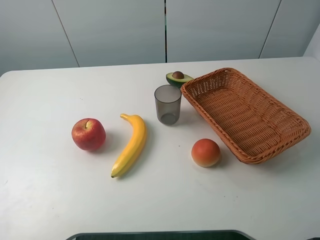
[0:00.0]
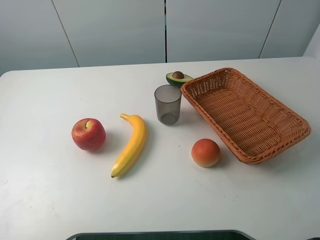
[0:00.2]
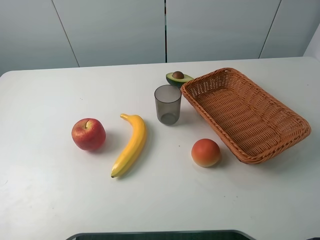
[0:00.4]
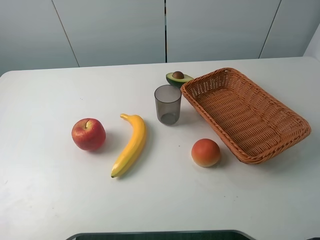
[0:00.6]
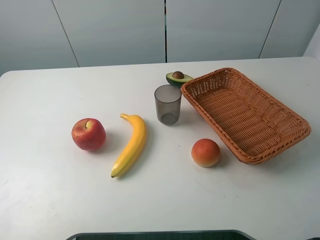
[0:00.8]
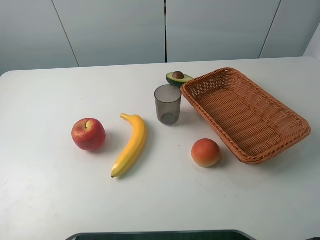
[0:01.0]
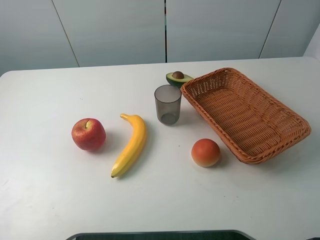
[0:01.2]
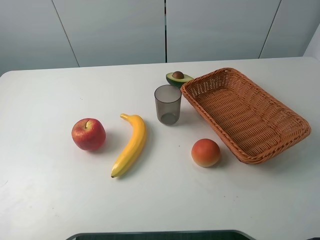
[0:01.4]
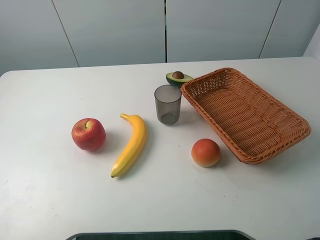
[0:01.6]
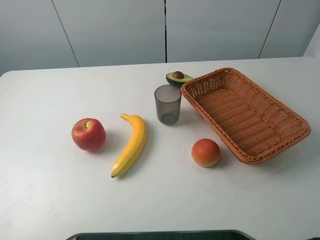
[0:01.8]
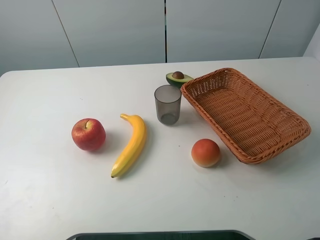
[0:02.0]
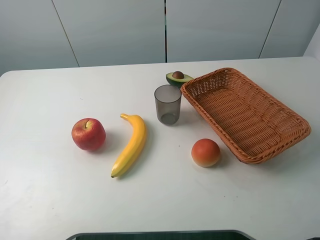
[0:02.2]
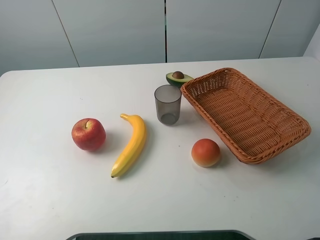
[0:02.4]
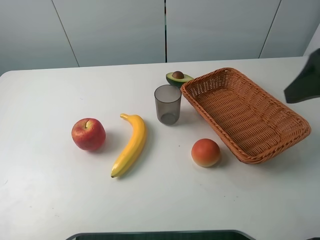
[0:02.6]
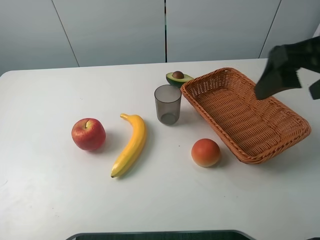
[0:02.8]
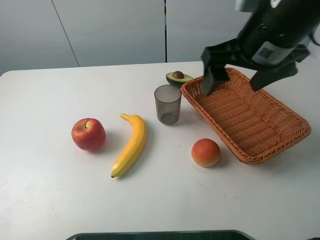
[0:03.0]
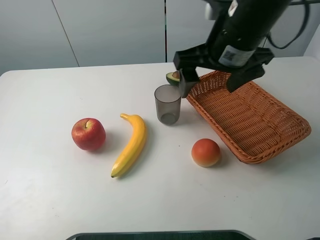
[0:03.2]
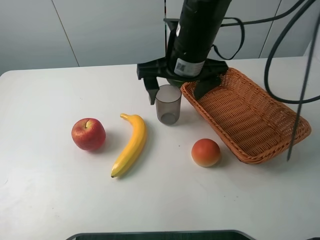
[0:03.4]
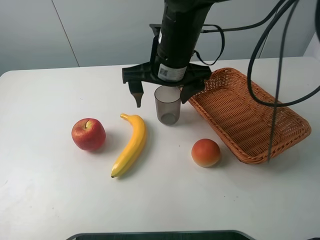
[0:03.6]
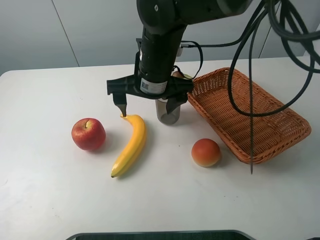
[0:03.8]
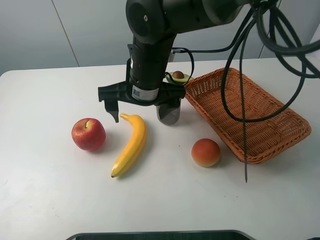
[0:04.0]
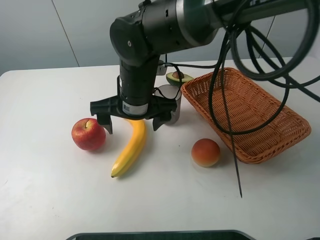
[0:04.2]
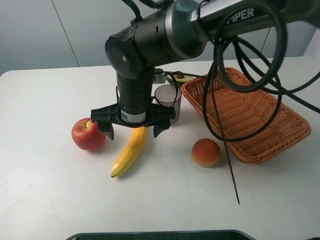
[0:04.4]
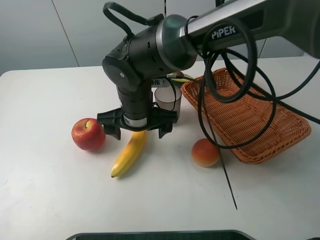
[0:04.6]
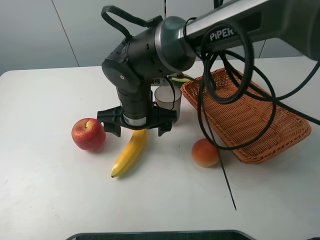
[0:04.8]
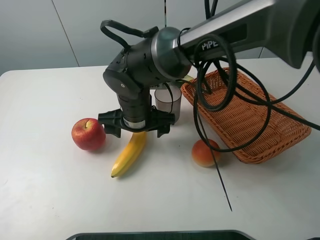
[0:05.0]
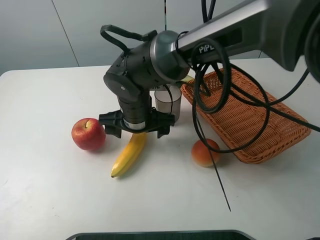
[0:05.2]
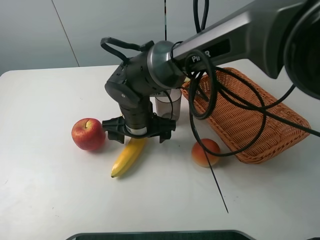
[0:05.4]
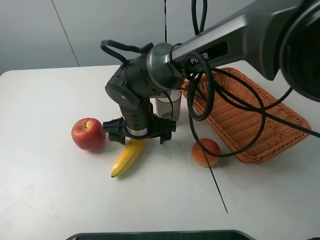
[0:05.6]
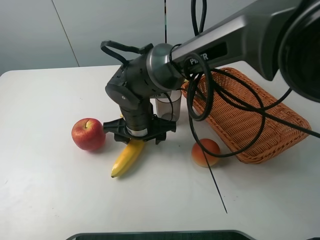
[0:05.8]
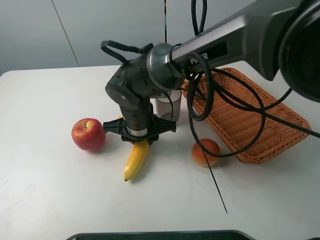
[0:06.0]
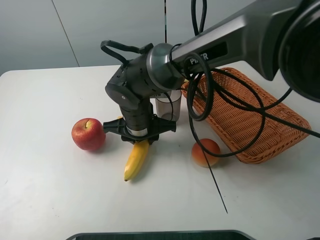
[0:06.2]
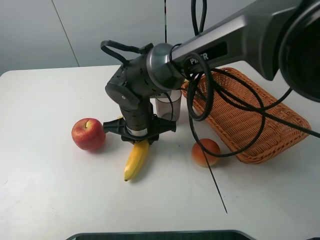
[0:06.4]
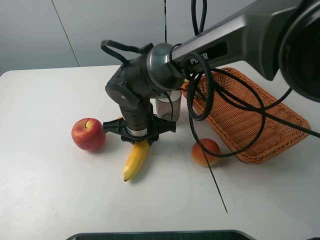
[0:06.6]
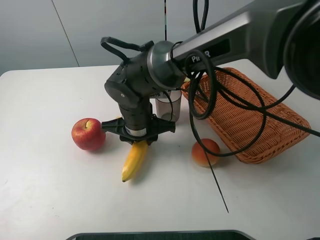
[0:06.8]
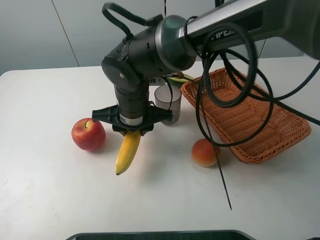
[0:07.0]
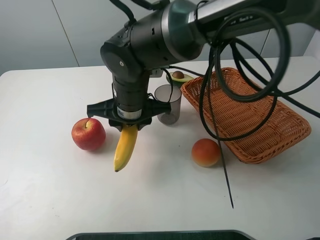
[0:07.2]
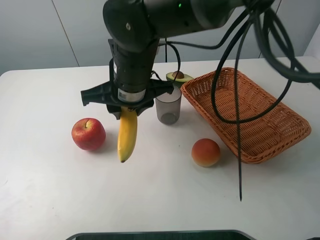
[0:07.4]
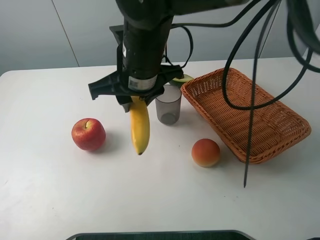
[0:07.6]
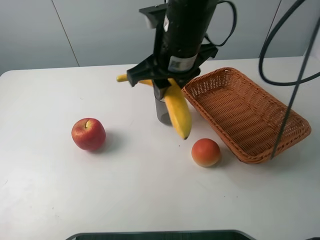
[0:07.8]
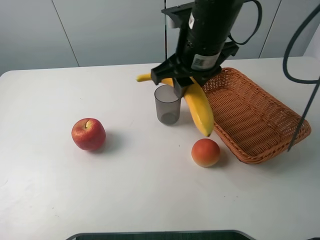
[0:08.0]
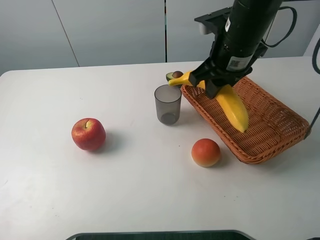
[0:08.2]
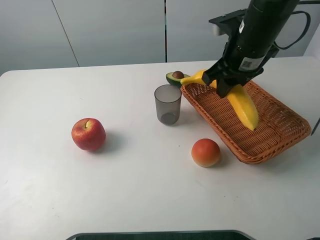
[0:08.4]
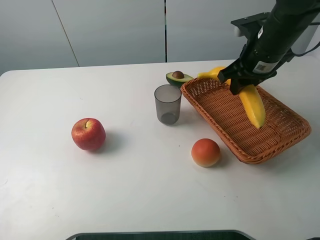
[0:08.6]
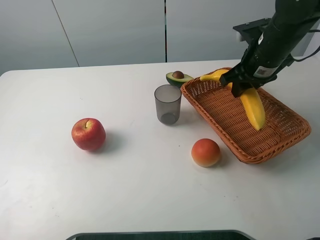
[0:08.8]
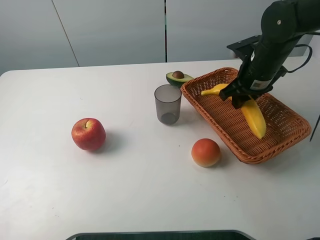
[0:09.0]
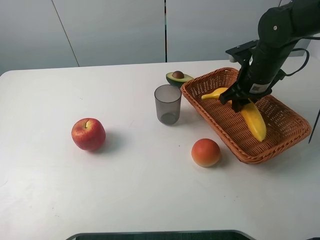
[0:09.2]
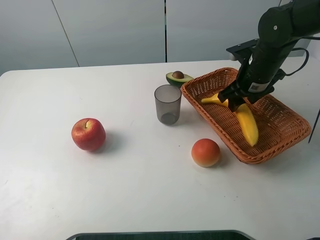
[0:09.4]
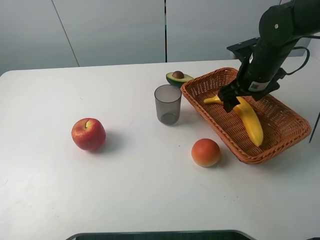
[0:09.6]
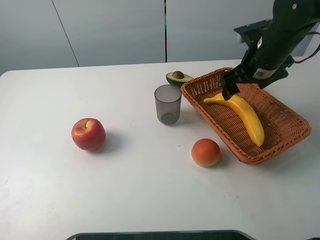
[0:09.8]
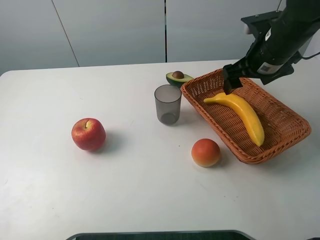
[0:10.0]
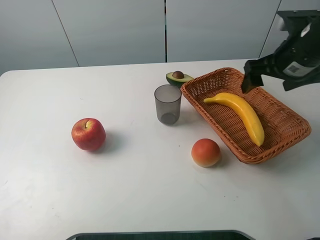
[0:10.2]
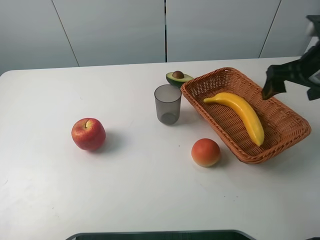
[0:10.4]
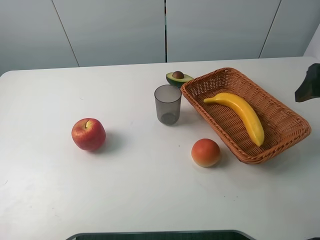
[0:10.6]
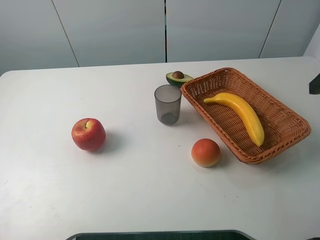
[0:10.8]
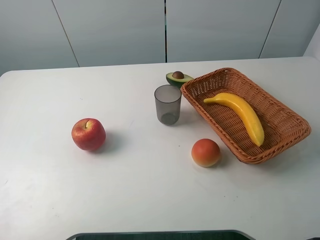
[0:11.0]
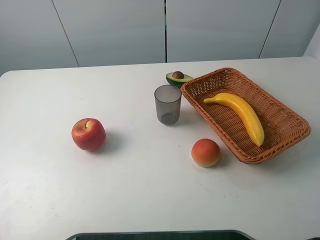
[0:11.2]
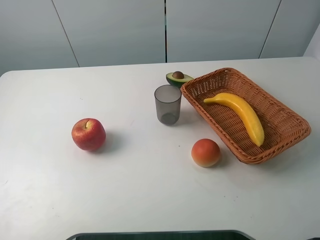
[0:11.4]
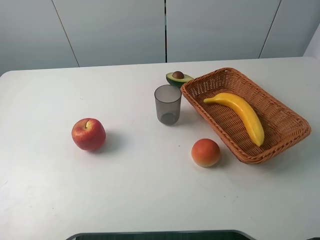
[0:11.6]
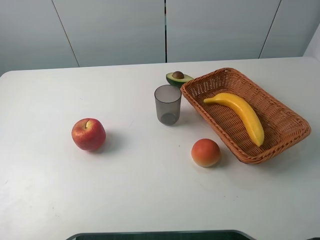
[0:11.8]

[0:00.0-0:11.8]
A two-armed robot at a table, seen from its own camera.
Task of the whole recording: randomly pick up an item from the table and put it in the basket.
Step, 0.0 to 6.0 s: Grasp the banana with the right gripper.
Step, 6.2 to 10.0 s: Place the banana into the basket with the right gripper.
0.0 to 1.4 s: Neither gripper changes place.
1.4 to 3.0 s: The right gripper moves forward and to the left, roughly 30 cm.
3.0 to 4.4 s: The right gripper goes approximately 25 cm to the left and downward.
4.4 to 6.0 s: The right gripper goes some 5 cm downward, and closes its fingers.
6.0 to 7.4 s: The right gripper shifts roughly 10 cm upward.
7.4 to 8.8 s: The right gripper goes roughly 25 cm to the right.
8.8 to 10.4 s: The right gripper heads to the right and backward, covering some 10 cm, and opens up.
10.4 to 11.8 s: The right gripper goes approximately 25 cm backward.

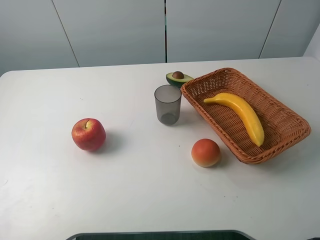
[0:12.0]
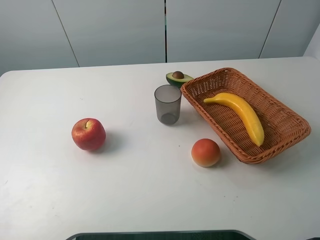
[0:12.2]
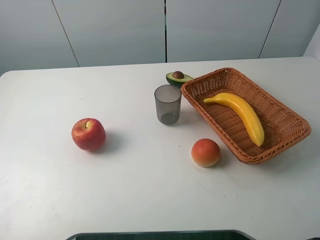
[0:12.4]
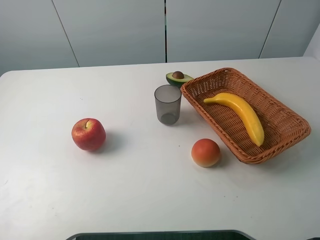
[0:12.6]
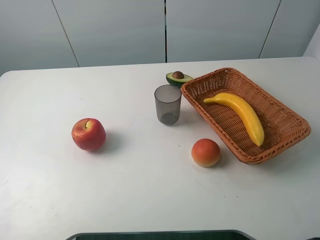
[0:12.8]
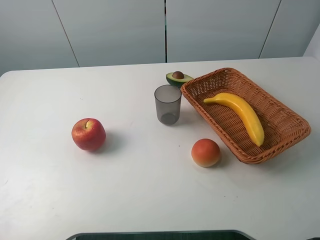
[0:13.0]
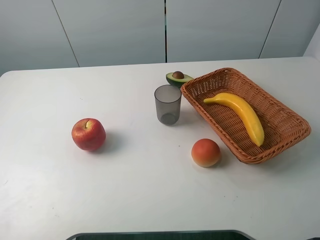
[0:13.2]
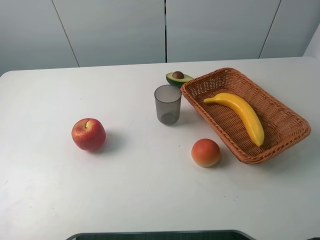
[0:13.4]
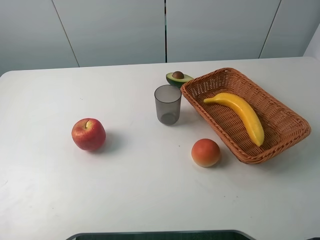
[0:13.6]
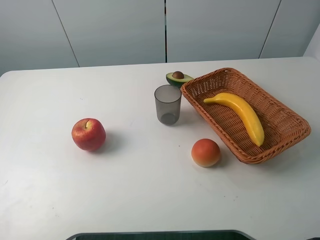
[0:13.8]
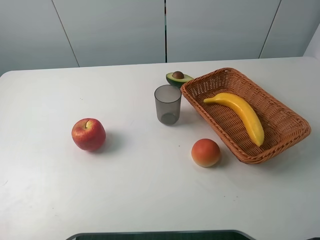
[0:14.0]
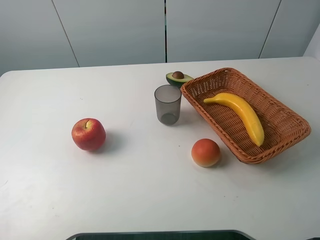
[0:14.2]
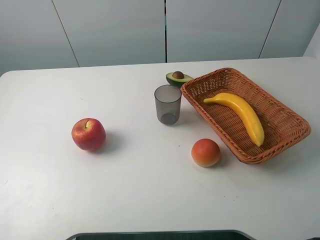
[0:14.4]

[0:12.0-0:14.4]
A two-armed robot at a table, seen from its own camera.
Task of the whole recording: randomly pick up an item from the table and put it in the basket.
12.0 to 14.4 s: Both grippers stay put.

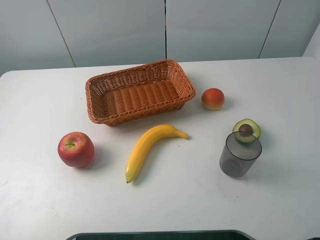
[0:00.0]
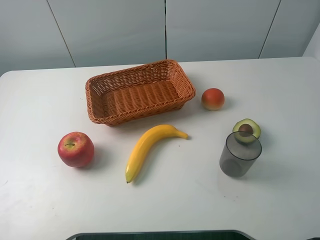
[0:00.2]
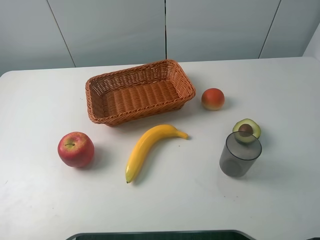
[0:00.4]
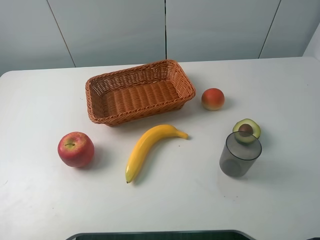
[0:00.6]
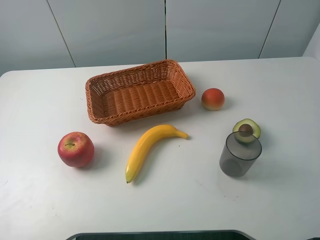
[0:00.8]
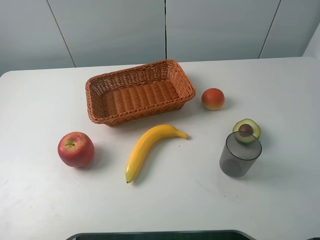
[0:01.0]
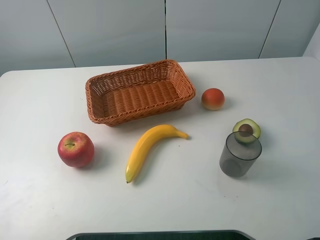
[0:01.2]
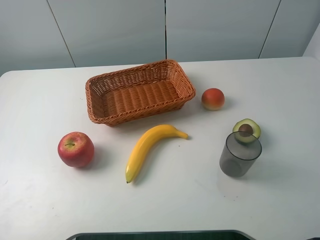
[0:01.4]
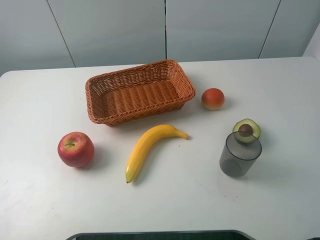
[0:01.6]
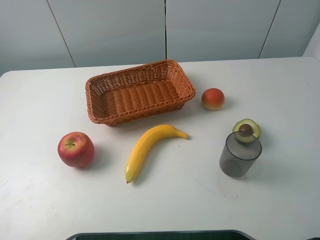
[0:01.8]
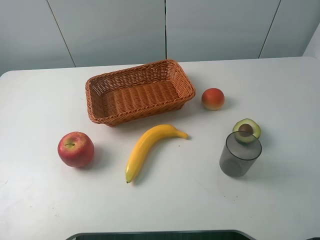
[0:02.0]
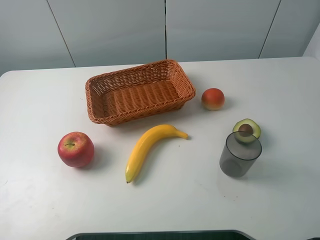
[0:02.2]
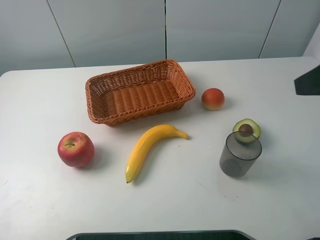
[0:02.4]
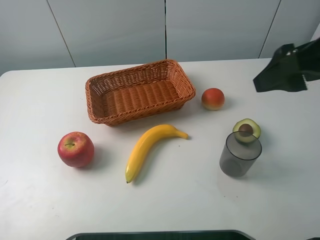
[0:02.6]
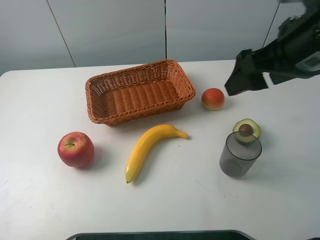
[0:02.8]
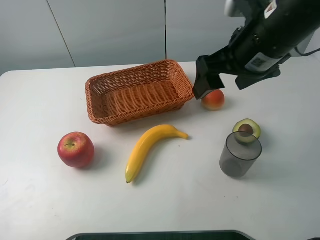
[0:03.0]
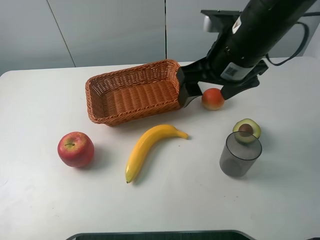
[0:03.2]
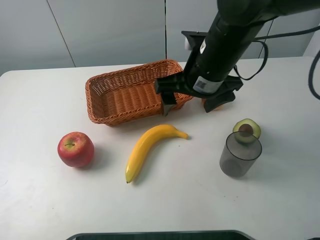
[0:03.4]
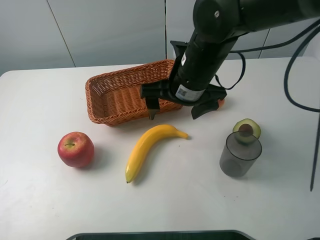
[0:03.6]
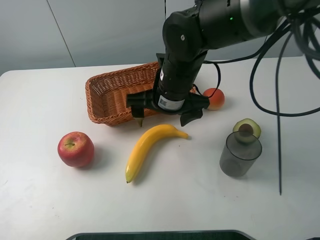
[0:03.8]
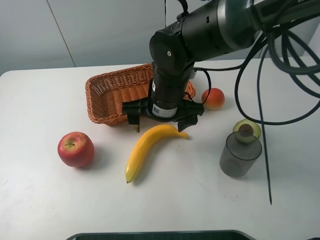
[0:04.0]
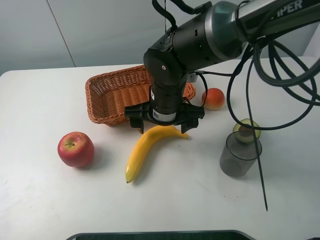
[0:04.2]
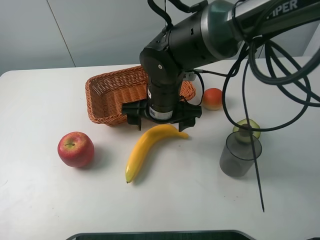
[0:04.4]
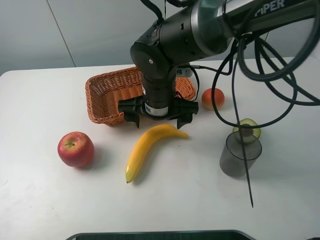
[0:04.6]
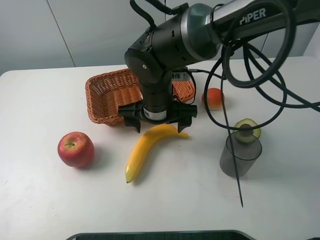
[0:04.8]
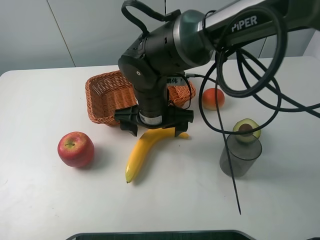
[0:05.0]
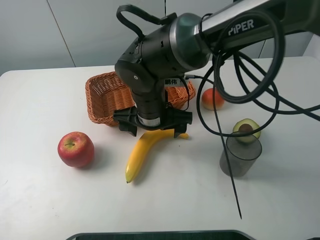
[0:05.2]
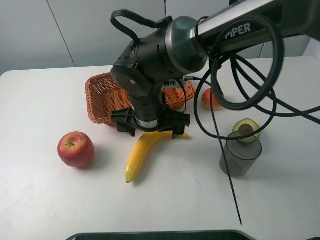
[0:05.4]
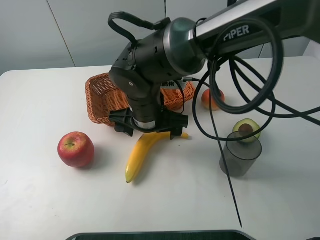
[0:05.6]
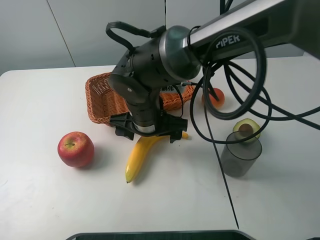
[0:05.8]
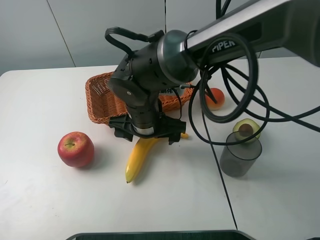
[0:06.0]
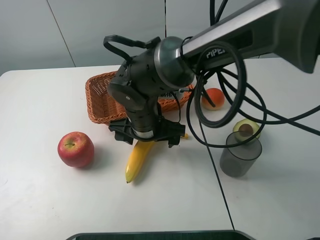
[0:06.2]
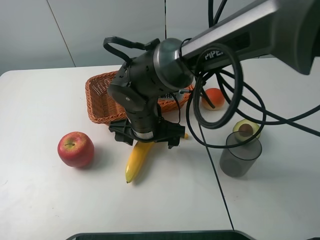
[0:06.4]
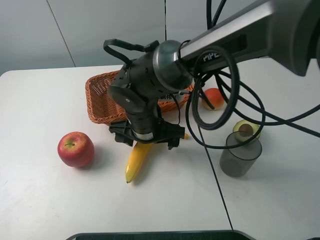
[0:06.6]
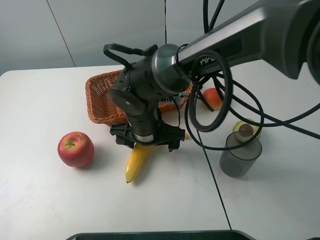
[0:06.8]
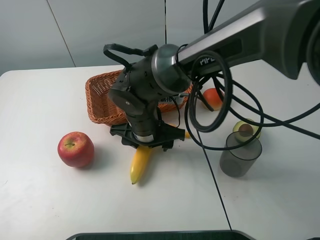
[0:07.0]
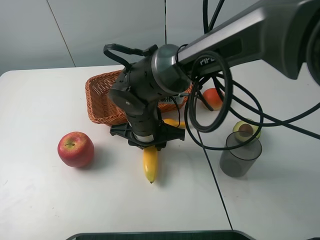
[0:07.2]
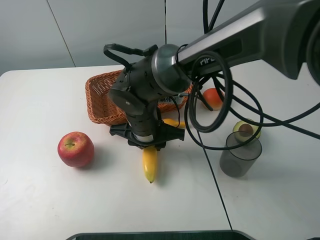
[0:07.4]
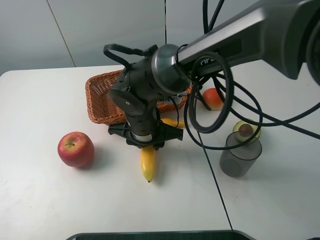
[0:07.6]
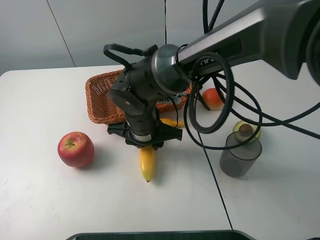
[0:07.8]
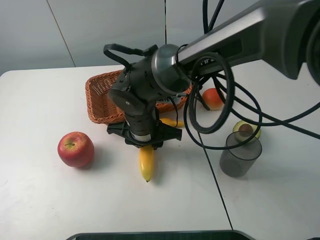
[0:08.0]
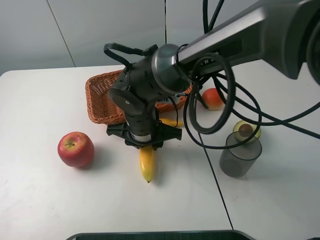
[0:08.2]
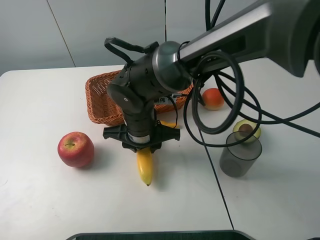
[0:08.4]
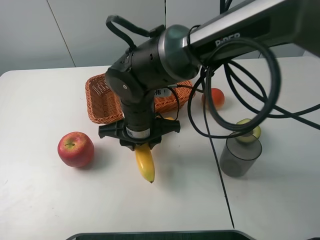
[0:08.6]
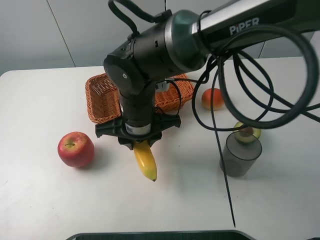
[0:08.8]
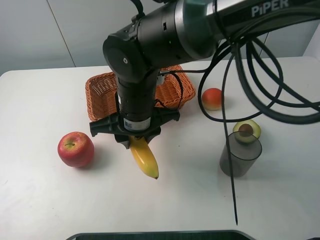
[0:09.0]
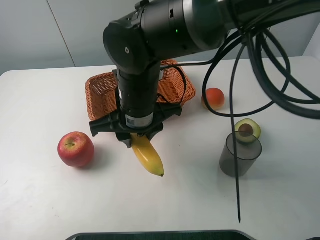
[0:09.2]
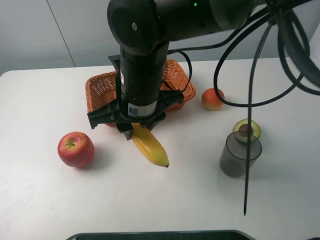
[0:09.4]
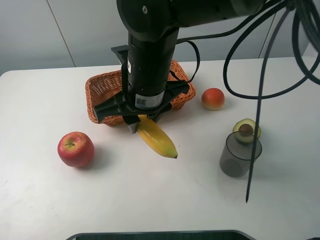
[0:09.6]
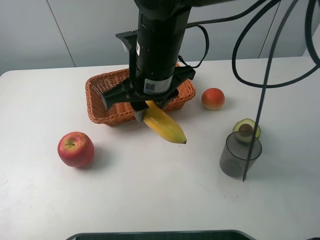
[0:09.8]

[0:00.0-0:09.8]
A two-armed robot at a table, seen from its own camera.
Task of the whole recording: randomly pick up an item from the table and put it in the basket.
Step, 0.0 to 7.2 s: Grasp the banana with the right gripper.
1.4 to 2.8 s: The right gripper travels forward and to the left by roughly 20 cm.
2.8 to 4.2 s: The right gripper travels to the left and downward by about 25 cm.
7.0 to 8.4 s: The right gripper closes.
8.4 to 9.8 s: The right gripper moves upward, about 15 cm.
